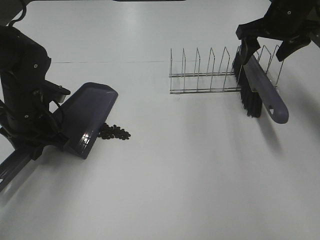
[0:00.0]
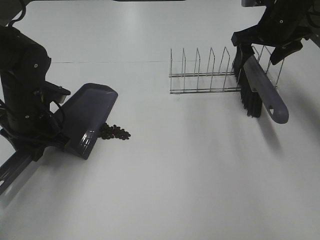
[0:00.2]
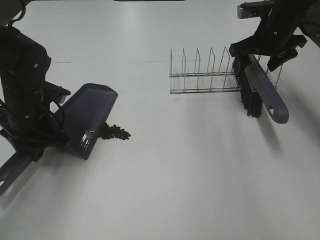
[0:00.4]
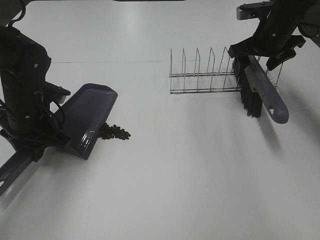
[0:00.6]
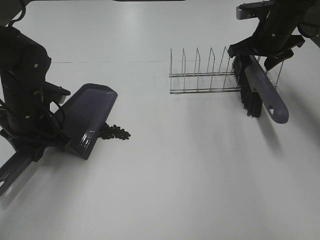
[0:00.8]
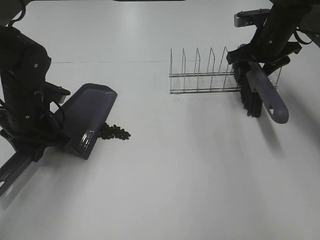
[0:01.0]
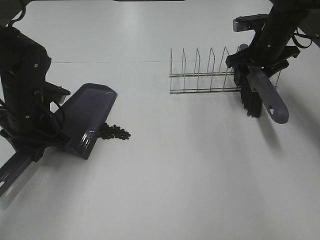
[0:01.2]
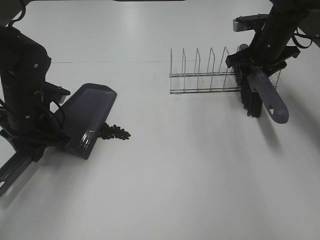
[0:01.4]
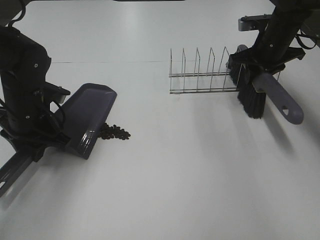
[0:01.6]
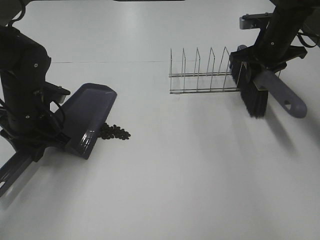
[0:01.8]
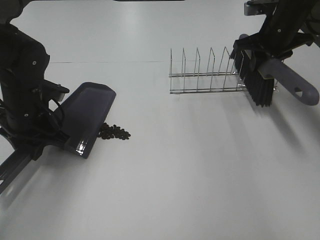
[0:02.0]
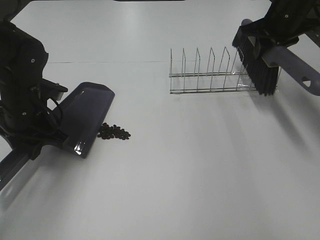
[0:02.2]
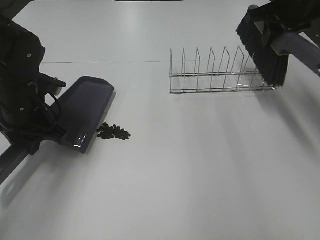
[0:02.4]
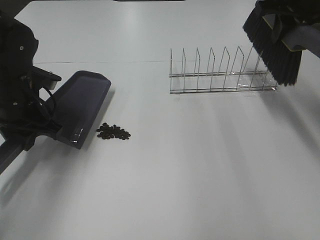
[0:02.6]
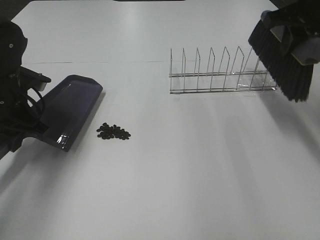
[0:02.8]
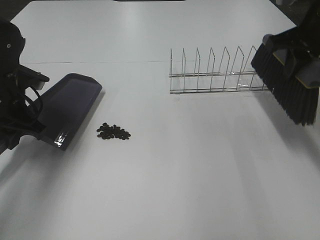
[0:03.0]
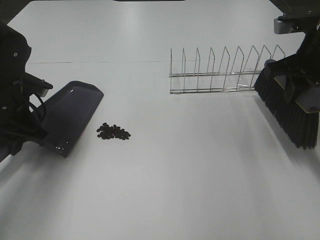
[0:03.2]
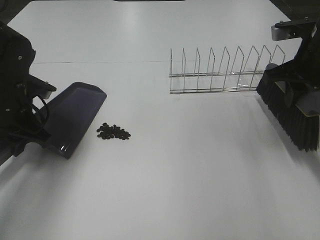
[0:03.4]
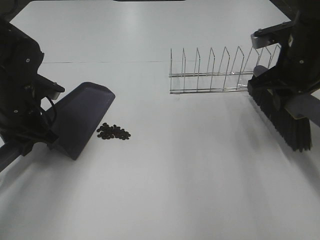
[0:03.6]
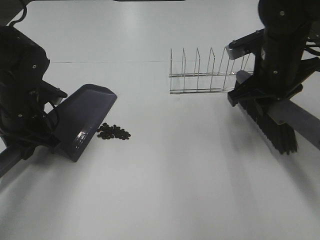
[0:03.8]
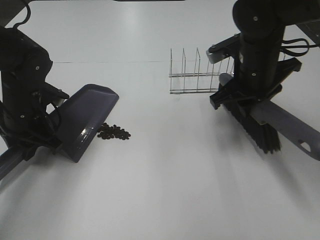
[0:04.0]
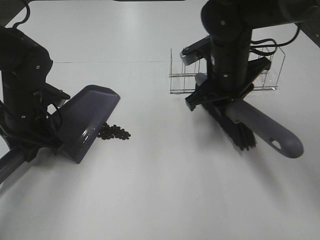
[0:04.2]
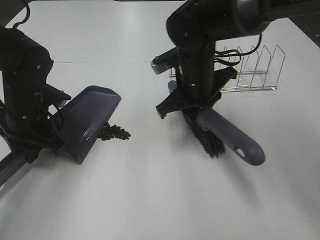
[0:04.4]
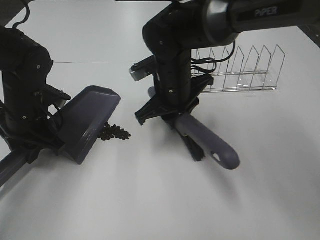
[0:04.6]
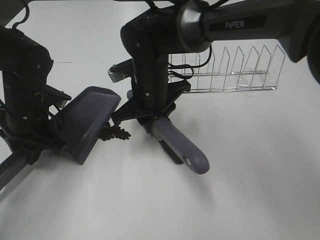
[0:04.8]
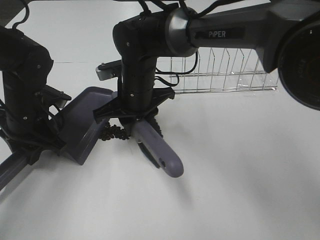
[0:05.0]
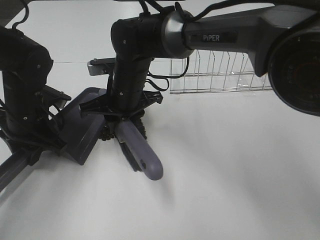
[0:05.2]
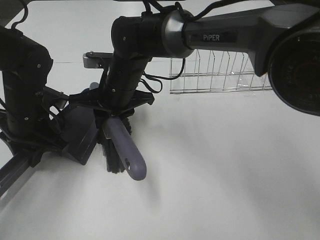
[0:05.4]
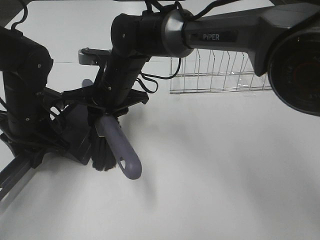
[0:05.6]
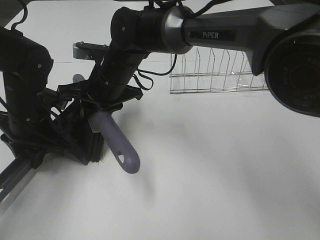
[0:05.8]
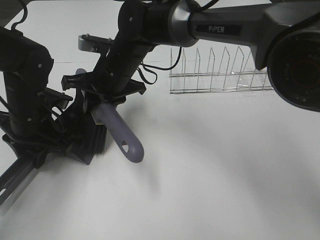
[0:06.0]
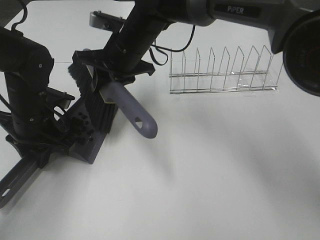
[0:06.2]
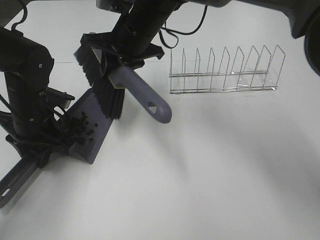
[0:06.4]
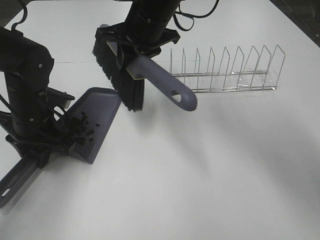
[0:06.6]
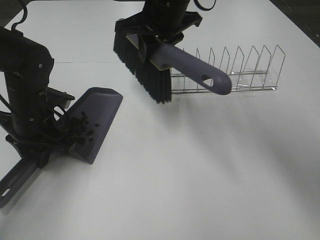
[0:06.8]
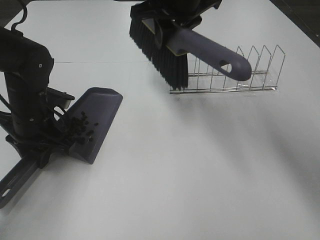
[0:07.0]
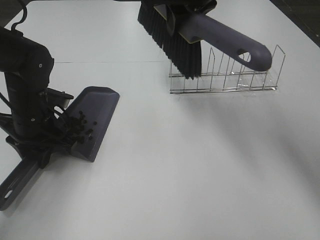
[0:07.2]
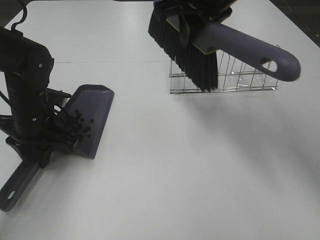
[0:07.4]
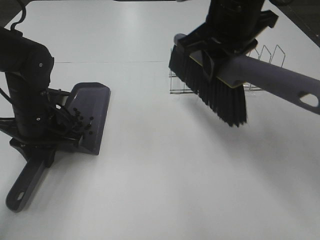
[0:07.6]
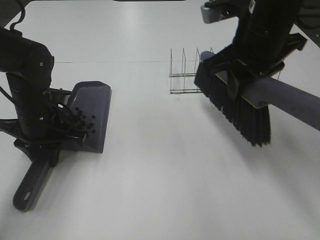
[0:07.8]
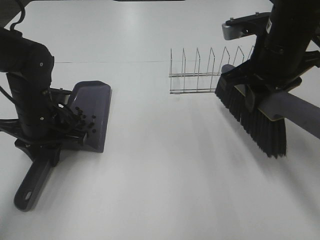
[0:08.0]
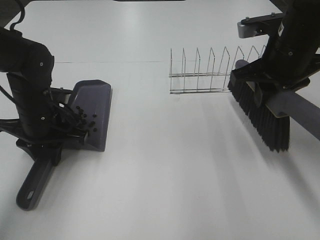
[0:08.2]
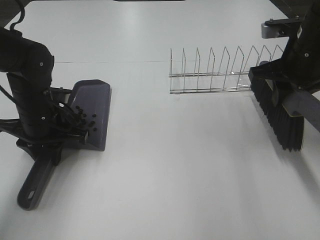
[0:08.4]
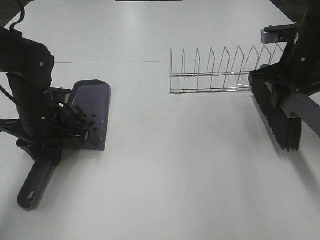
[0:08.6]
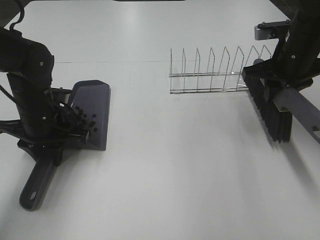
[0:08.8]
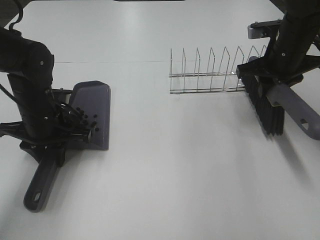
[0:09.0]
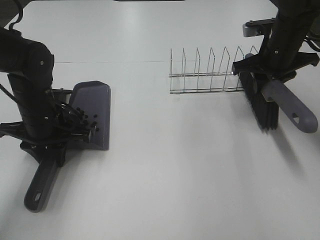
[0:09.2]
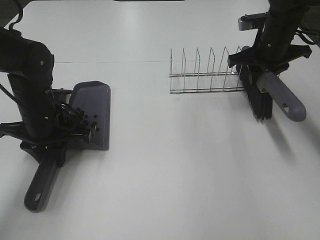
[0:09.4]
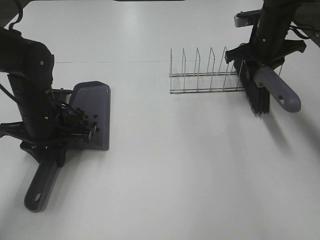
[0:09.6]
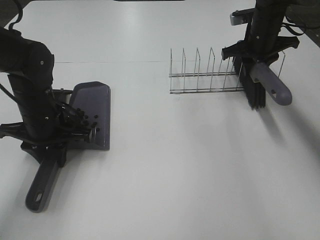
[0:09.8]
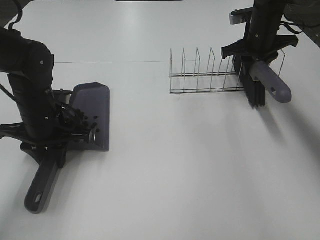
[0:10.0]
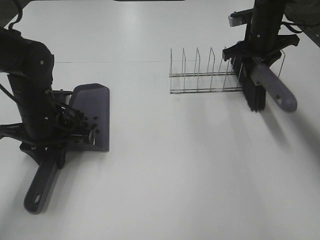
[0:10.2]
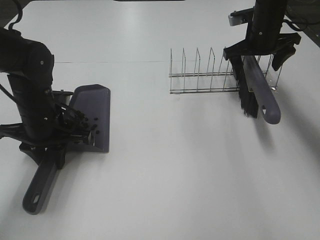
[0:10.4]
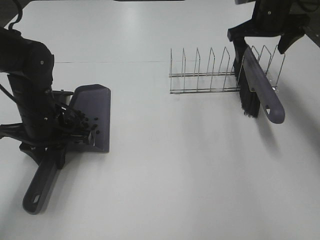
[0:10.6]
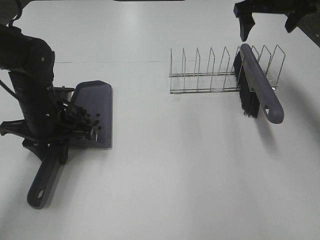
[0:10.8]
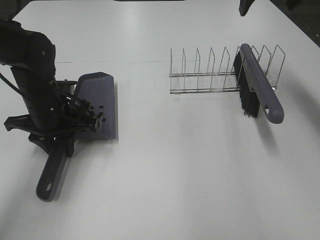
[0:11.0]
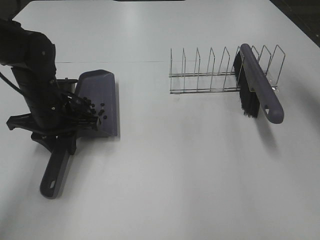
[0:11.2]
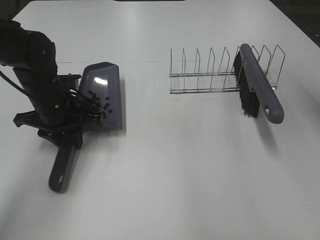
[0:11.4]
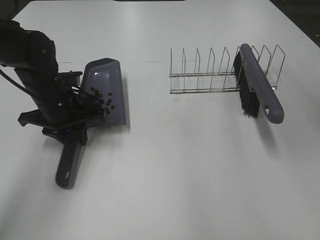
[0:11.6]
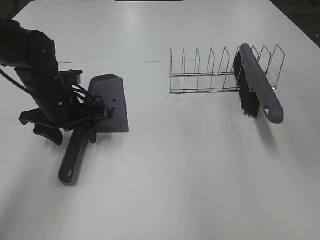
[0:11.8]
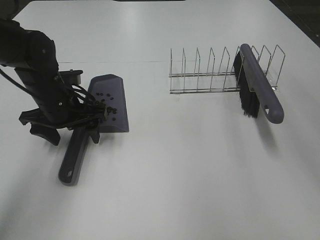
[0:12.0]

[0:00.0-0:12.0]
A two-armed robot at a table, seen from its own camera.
Task of the whole recording: Sweep Coffee Bean.
Step, 0:01.8 to 0:06.2: Right hand:sweep the coffee beans into the dustpan.
Step, 0:06.4 to 0:10.4: Right hand:place the broom on the rack.
0:00.0 to 0:01.6: The right gripper travels downward by some 5 cm, and closes its fingers.
0:01.6 to 0:03.0: The right gripper moves backward and upward, some 15 cm.
0:03.0 to 0:04.4: The right gripper shifts some 20 cm to the left and downward.
0:04.4 to 0:06.0: The right gripper is displaced to the left by roughly 10 cm.
0:06.0 to 0:07.6: The right gripper travels to the right, upward and backward by approximately 20 cm.
0:07.6 to 0:09.0: The right gripper is displaced to the right, downward and forward by some 20 cm.
0:09.0 to 0:10.4: The right gripper goes some 10 cm forward, and opens its fingers.
0:10.4 to 0:12.0: The right gripper shifts some 35 cm backward and upward, while the left gripper opens up.

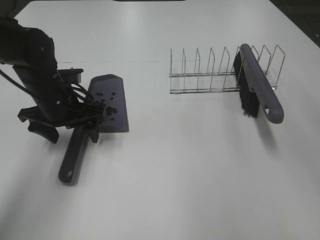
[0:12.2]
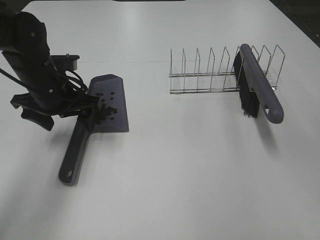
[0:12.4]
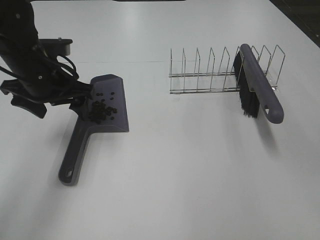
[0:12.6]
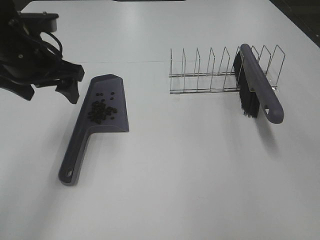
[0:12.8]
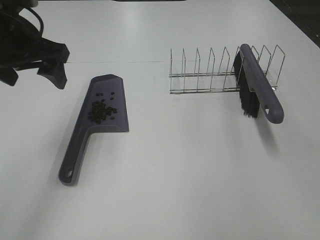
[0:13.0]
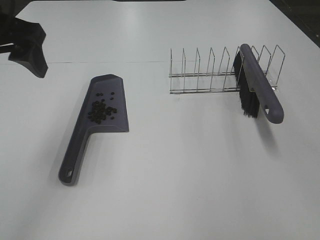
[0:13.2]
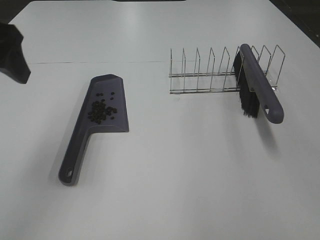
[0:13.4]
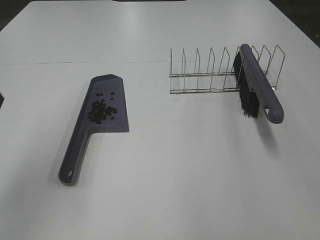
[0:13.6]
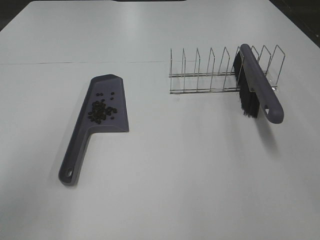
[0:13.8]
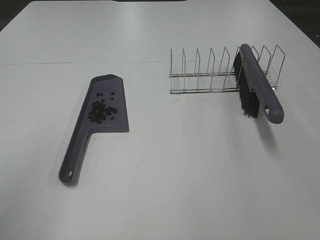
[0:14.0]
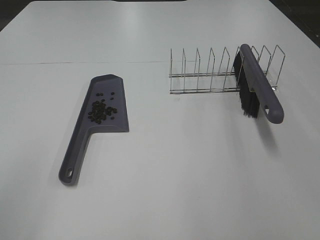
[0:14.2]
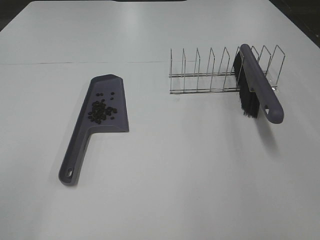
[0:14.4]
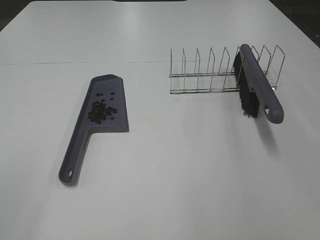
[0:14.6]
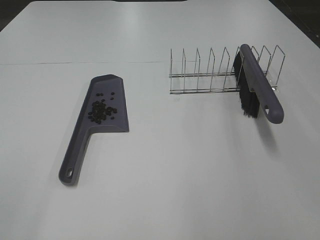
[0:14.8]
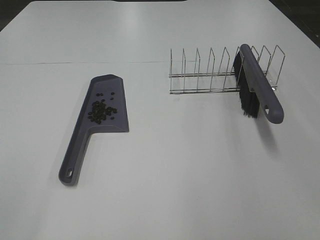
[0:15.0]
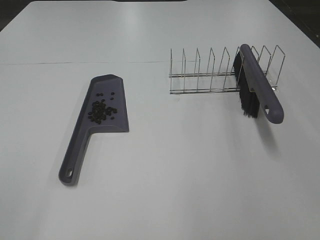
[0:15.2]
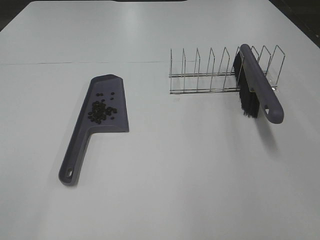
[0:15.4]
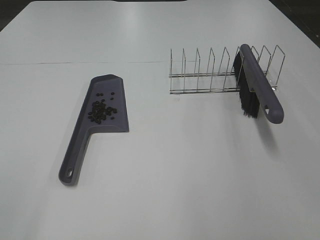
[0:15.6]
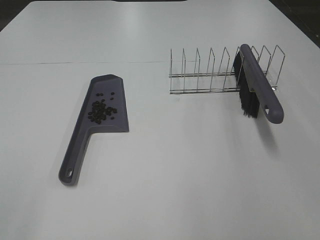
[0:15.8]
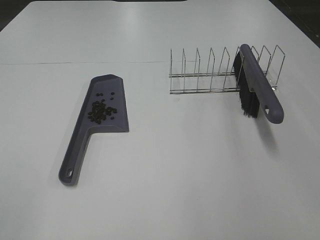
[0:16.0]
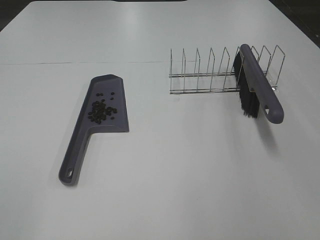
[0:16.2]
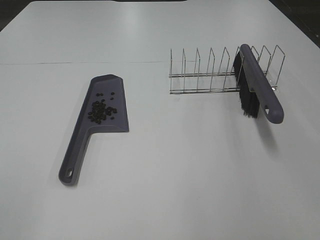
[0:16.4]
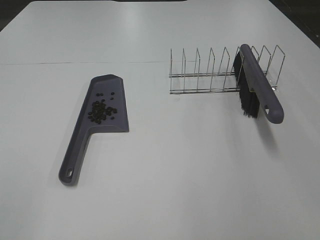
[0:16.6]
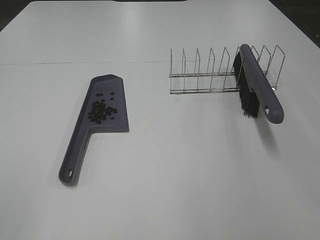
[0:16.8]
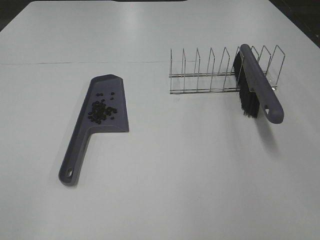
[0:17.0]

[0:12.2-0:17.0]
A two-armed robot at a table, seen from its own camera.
Task of the whole recording: Sweep Coffee Bean.
0:12.2 to 0:13.8: The left gripper travels backward, upward and to the left by some 30 cm.
0:13.8 to 0:15.4: The left gripper travels backward by about 15 cm.

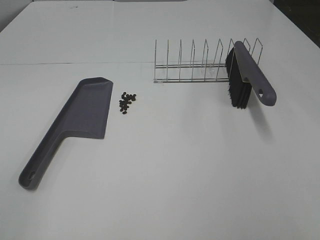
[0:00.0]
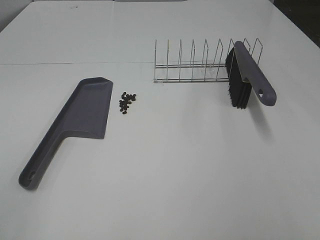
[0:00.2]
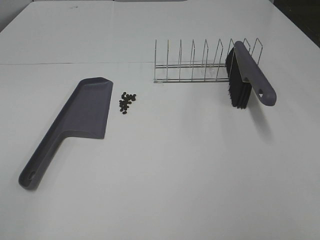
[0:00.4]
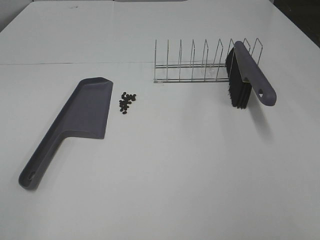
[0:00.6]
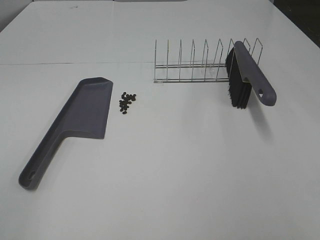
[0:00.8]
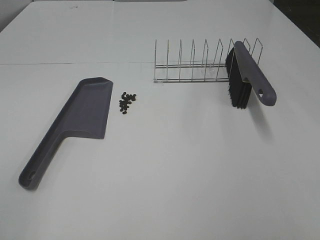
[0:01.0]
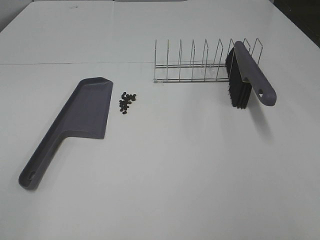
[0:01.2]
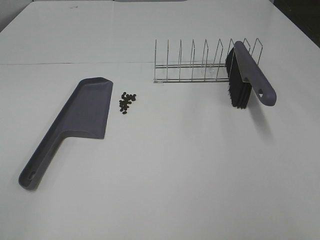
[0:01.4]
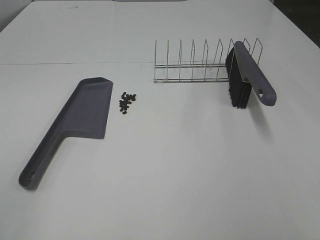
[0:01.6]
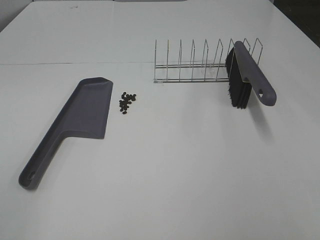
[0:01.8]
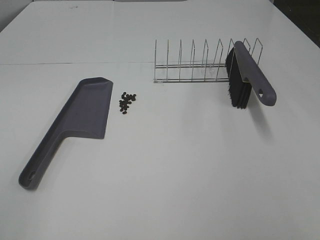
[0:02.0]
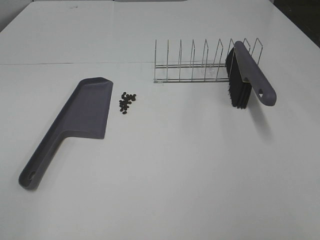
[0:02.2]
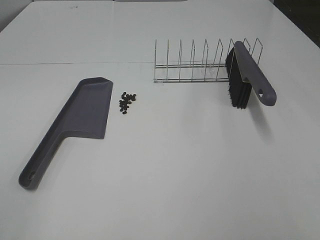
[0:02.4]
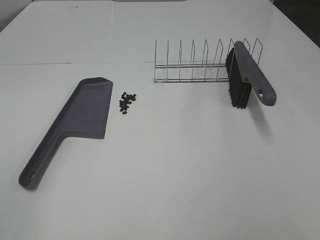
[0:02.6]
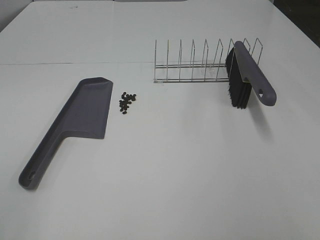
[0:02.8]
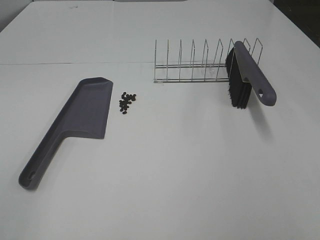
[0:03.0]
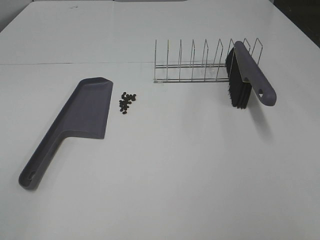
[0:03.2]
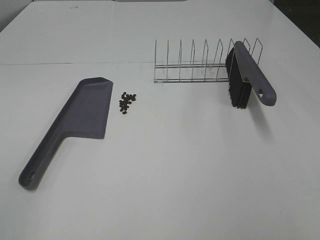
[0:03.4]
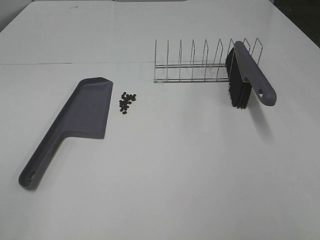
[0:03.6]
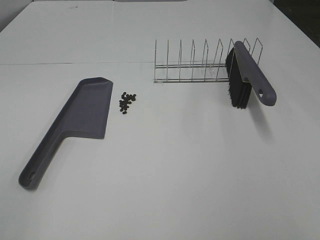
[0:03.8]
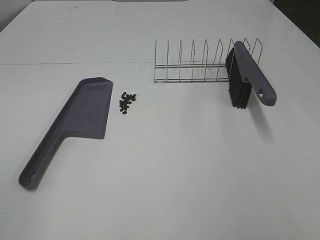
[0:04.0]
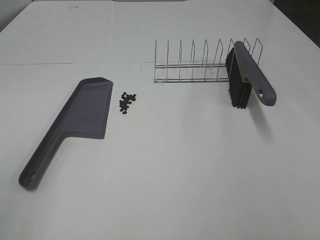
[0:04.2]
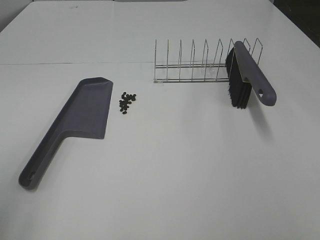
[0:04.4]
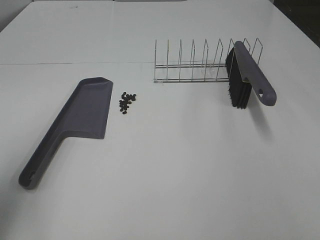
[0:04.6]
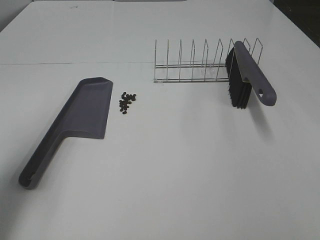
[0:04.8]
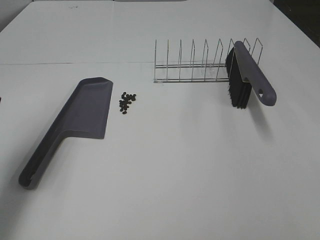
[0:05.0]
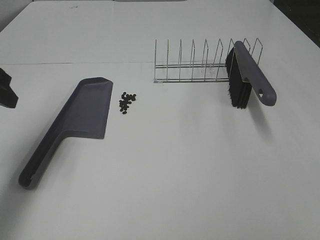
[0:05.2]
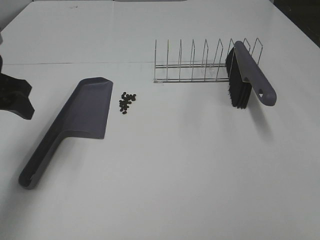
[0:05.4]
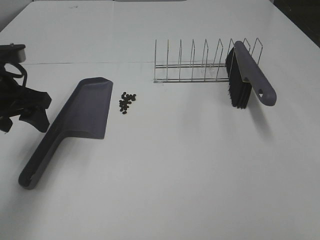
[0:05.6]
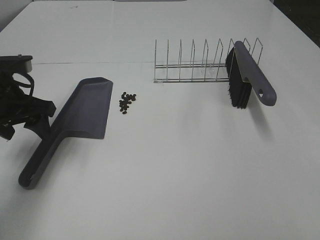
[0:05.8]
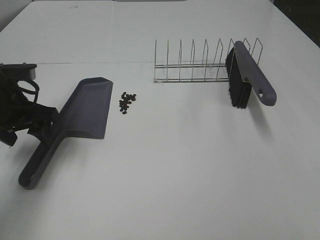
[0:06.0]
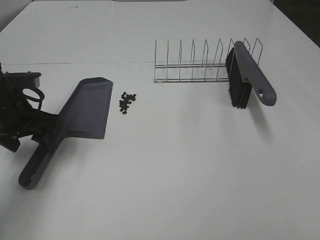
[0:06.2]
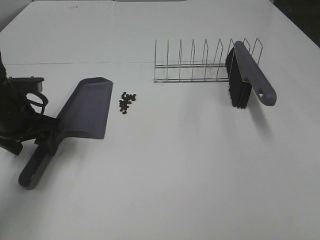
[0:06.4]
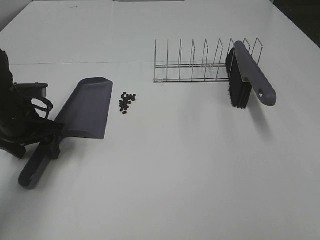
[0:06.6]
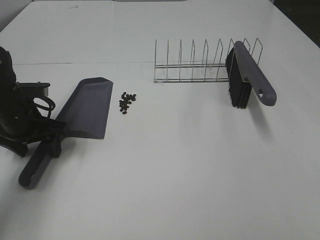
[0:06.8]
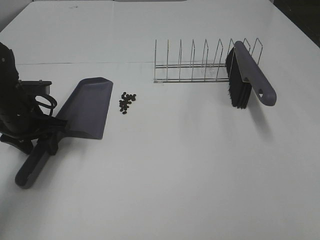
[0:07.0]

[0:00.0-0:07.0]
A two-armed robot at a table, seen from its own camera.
Task of the whole recording: Sweep Coffee Bean.
0:00.0 to 0:02.8: The two grippers keep their place.
0:04.2 to 0:05.6: The left gripper goes approximately 25 cm forward.
0:05.6 to 0:07.0: The left gripper heads downward, covering roughly 10 cm, and closes.
